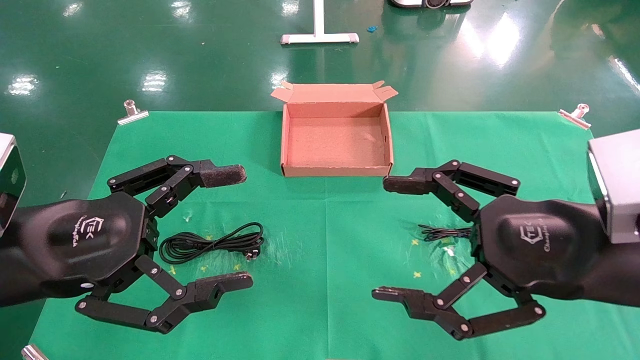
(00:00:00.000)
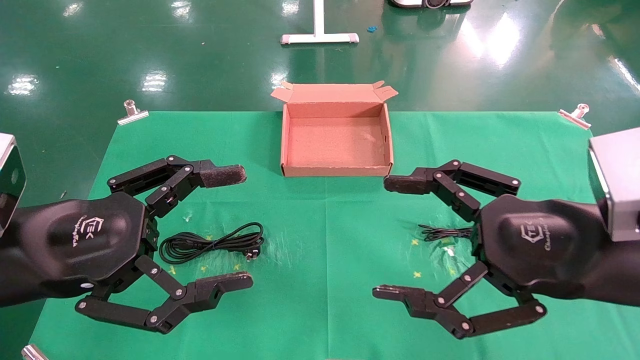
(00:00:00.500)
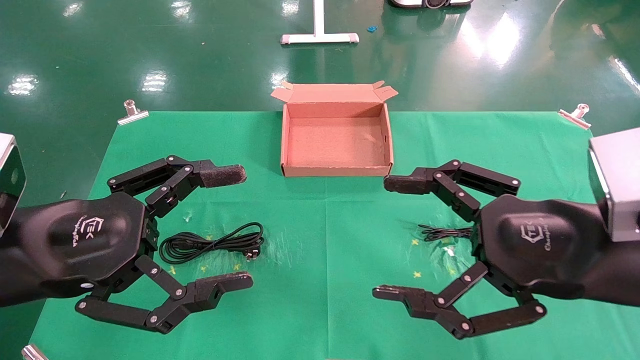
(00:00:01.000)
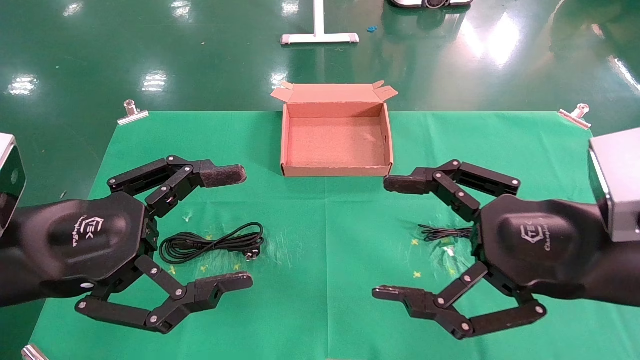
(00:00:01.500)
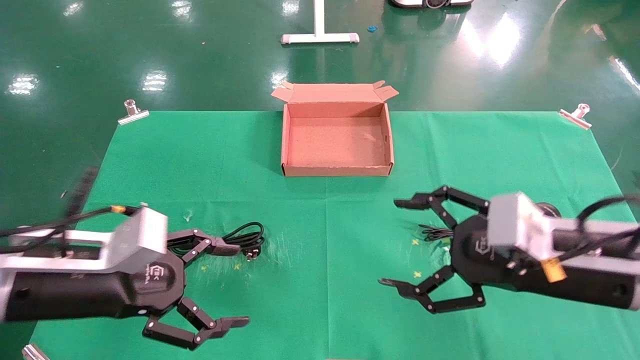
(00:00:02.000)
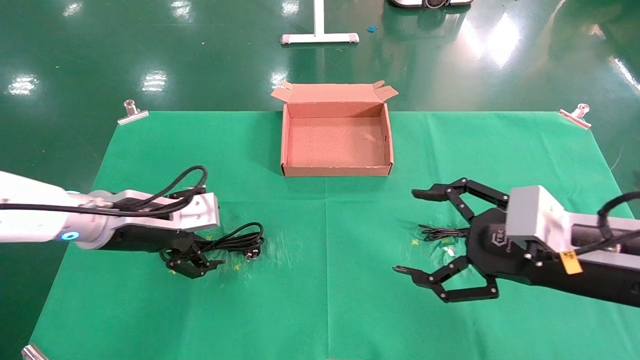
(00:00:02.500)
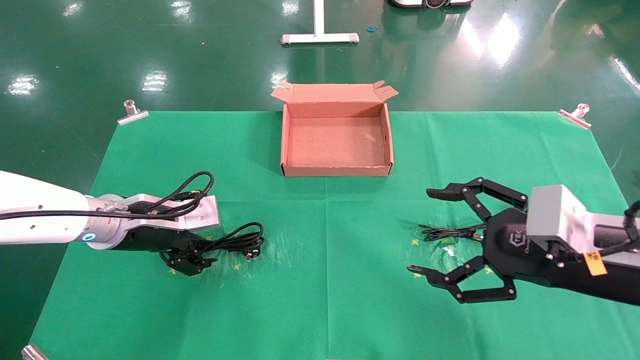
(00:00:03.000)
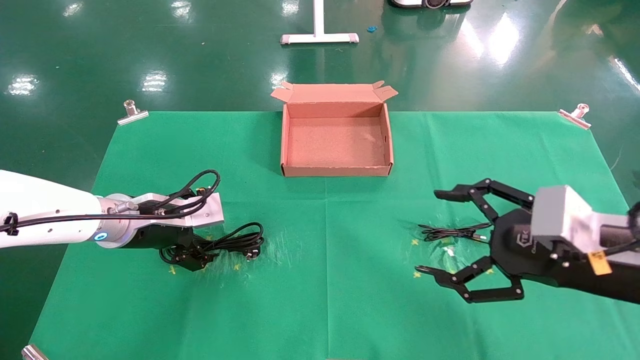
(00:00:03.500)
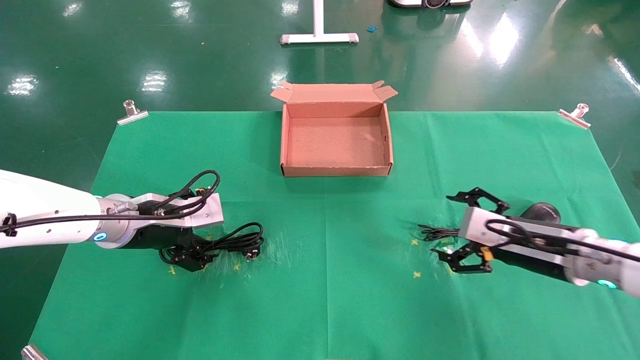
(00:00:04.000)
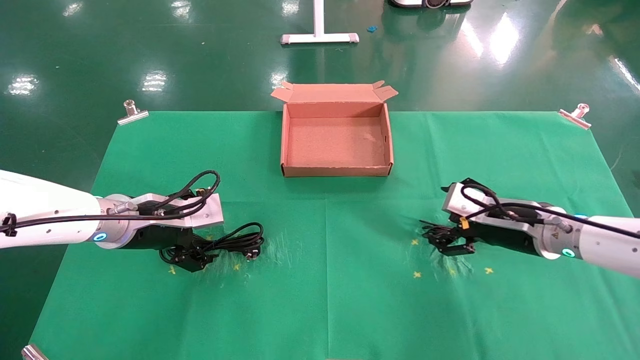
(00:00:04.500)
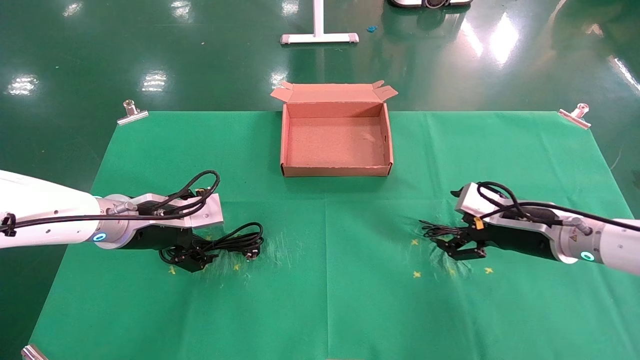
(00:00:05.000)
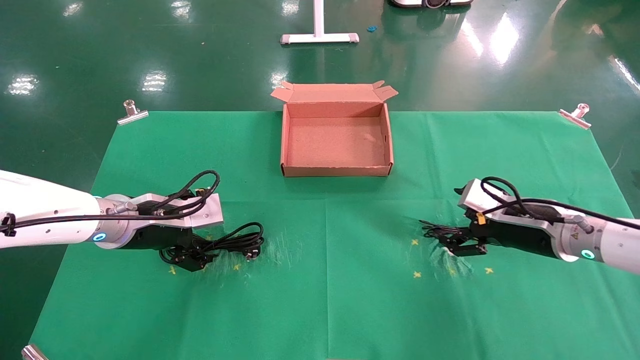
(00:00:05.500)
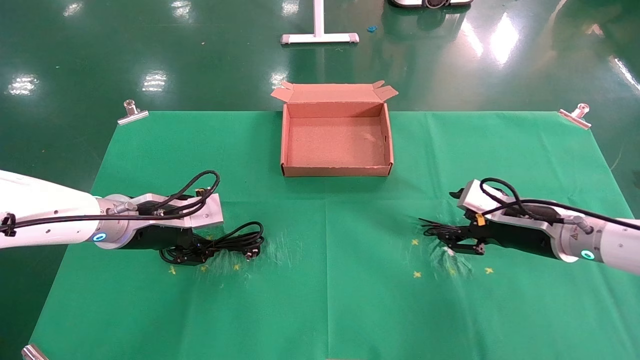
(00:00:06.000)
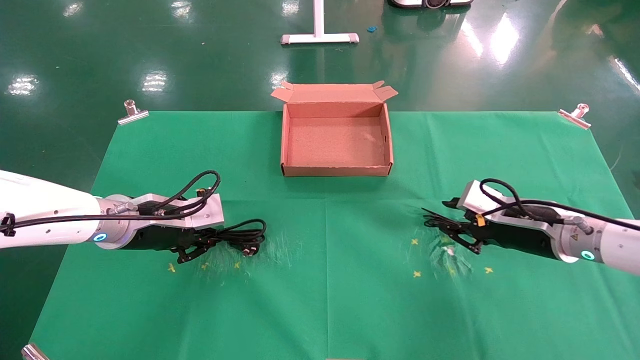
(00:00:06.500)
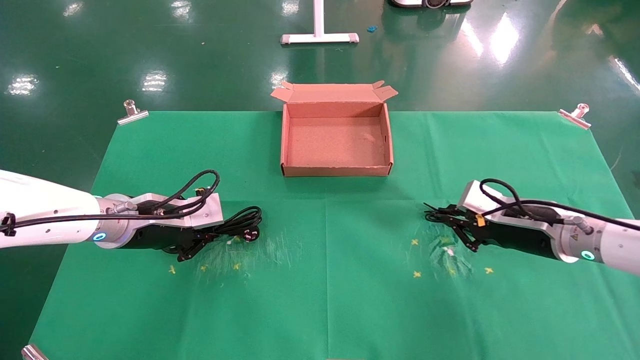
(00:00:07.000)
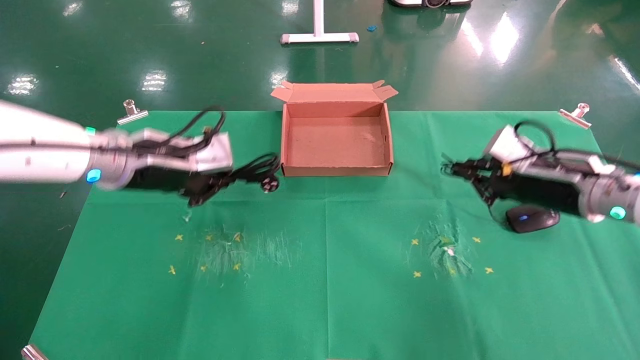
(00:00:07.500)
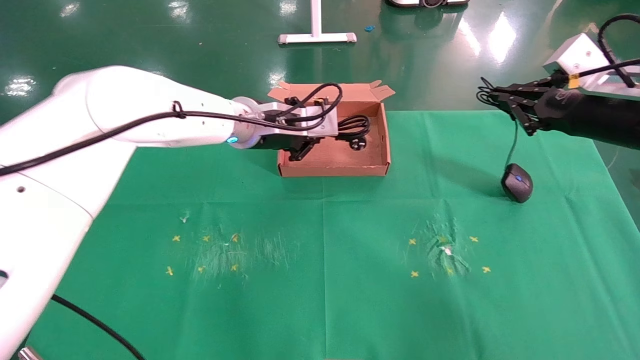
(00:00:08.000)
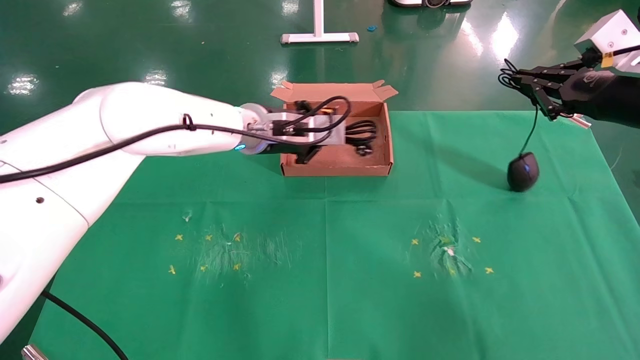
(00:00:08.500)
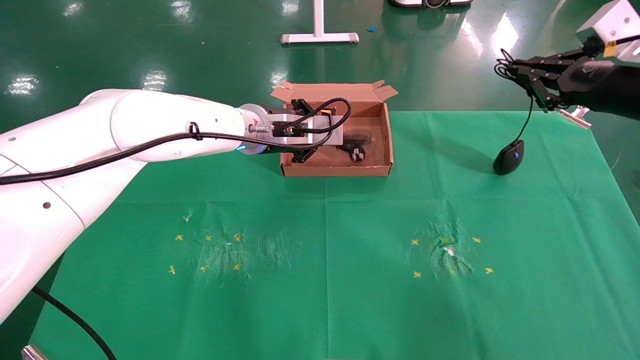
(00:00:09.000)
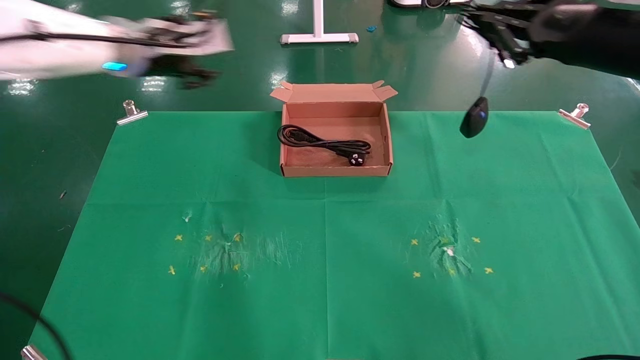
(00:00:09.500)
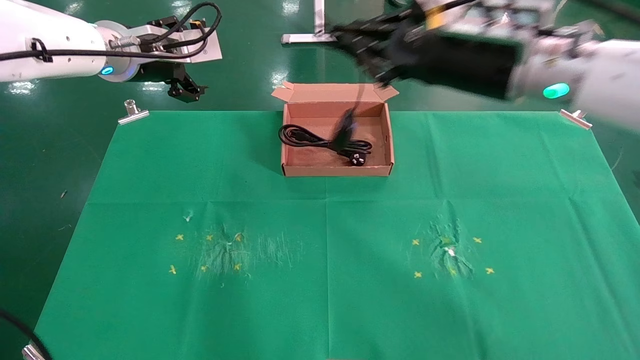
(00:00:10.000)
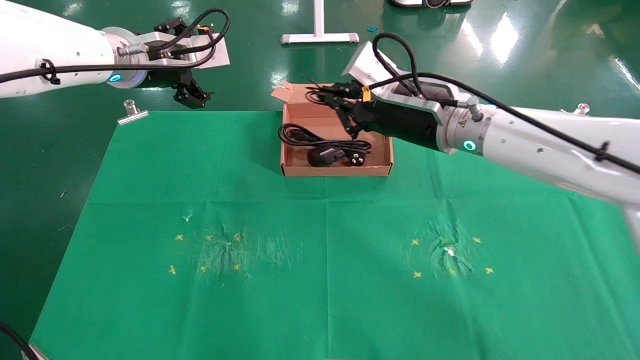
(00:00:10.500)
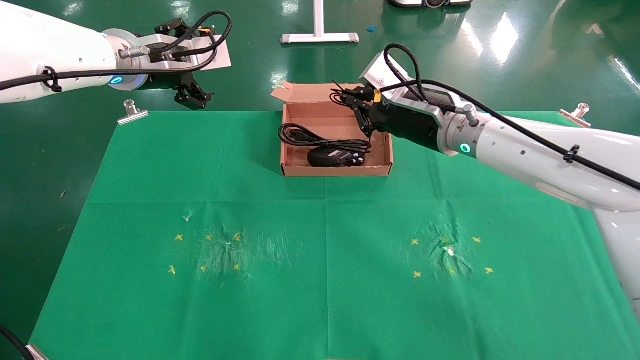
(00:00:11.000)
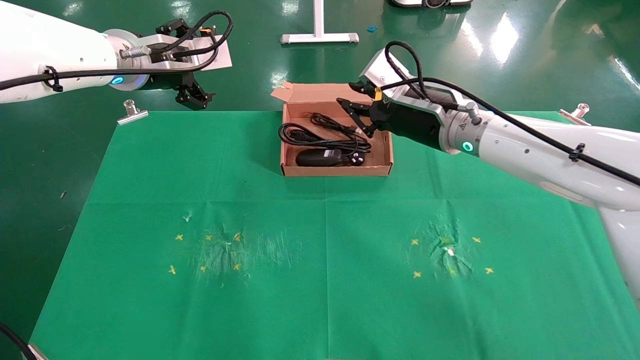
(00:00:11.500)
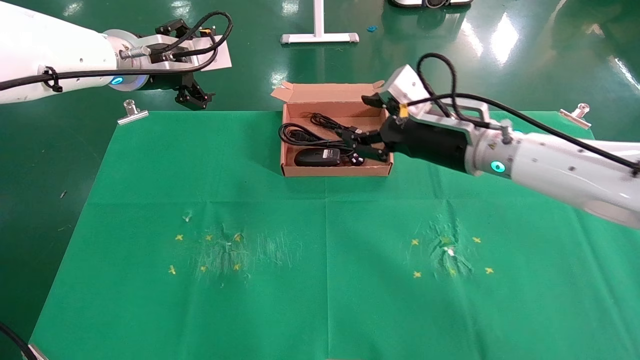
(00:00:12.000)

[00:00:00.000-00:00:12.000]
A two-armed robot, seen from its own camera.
Task of the whole recording: grasp data cable left put into box grasp mouse right put into box.
Step, 00:00:01.500 to 00:00:07.000: Simultaneously pick up the mouse and power cord from the accessory packaging area.
Step, 00:00:07.500 to 00:00:11.000: Place the mouse and power cord into the box.
00:00:00.000 to 00:00:02.000: The right gripper changes place by roughly 5 cm; the left gripper heads forward and downward, covering approximately 10 cm.
00:00:02.000 to 00:00:04.000: The right gripper is displaced forward and downward by about 10 cm; the left gripper moves forward, about 10 cm.
00:00:04.000 to 00:00:06.000: There are only small adjustments of the grippers.
00:00:06.000 to 00:00:08.000: The right gripper is displaced upward by roughly 15 cm, and closes up; the left gripper is displaced to the right, upward and forward by about 20 cm, and closes its fingers.
00:00:08.000 to 00:00:10.000: The left gripper heads to the left and upward, covering approximately 15 cm, and opens up. Meanwhile the right gripper moves to the left, approximately 20 cm.
00:00:10.000 to 00:00:12.000: The right gripper moves downward, some 10 cm, and opens its fingers.

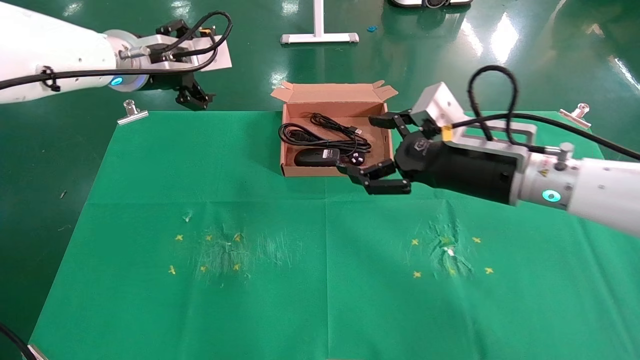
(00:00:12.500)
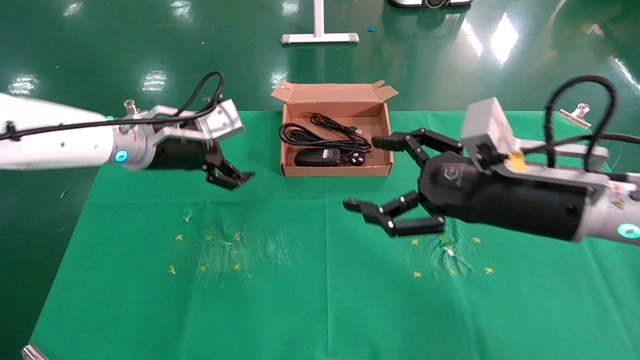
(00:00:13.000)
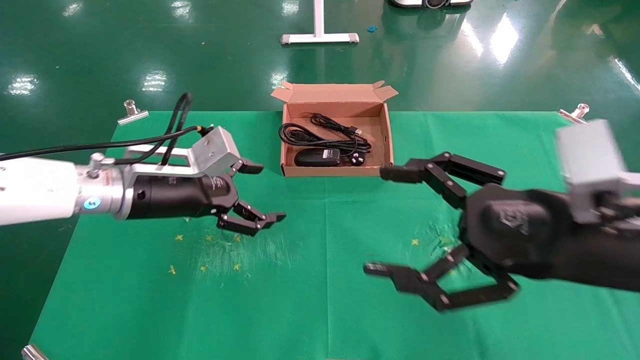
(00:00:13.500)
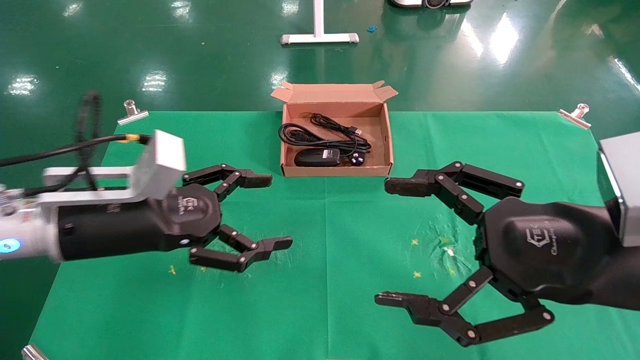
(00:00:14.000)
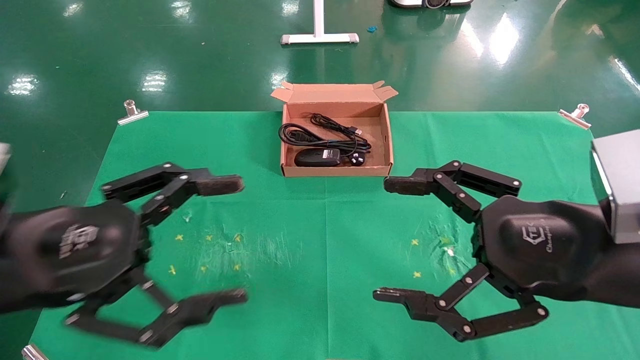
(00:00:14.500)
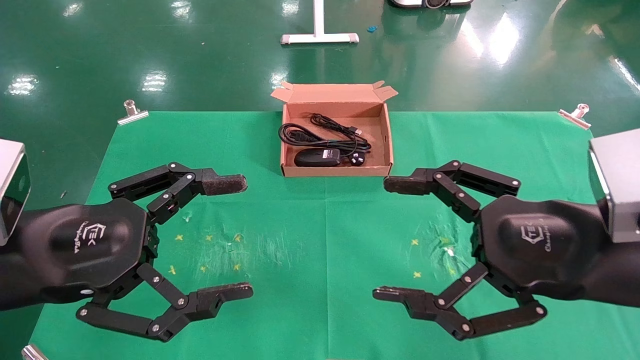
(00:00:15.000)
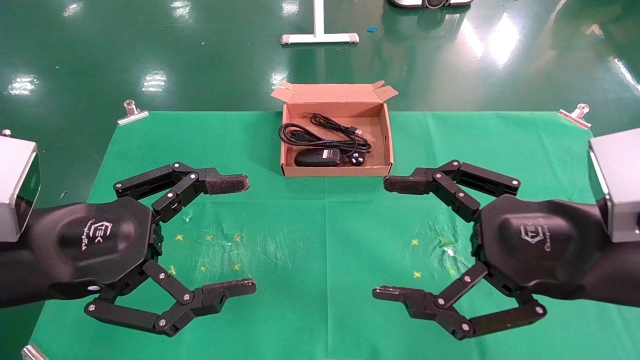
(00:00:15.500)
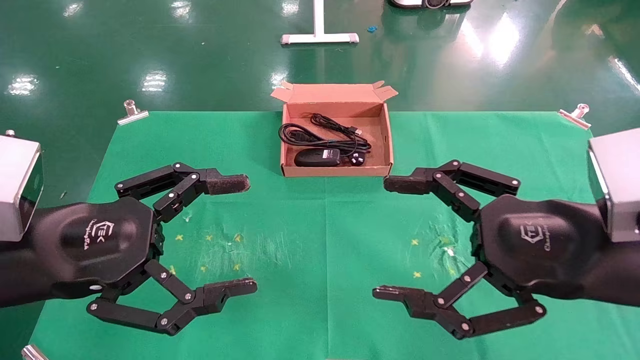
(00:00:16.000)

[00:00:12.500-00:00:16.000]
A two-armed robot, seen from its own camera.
Task of the whole recording: grasp data cable left put into box grasp mouse right put into box.
00:00:12.500 to 00:00:14.500: The right gripper moves backward, approximately 15 cm; the left gripper heads backward and downward, covering about 25 cm.
00:00:14.500 to 00:00:16.000: Both grippers stay put.
